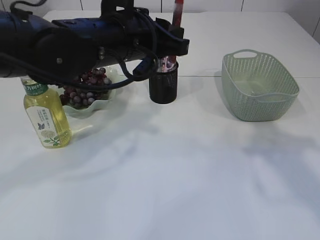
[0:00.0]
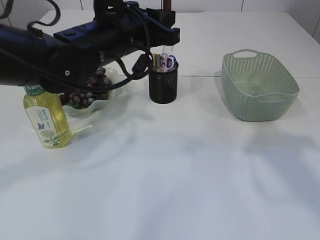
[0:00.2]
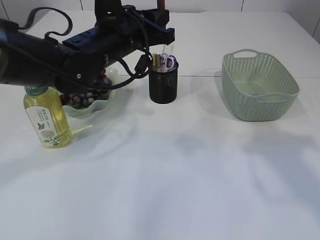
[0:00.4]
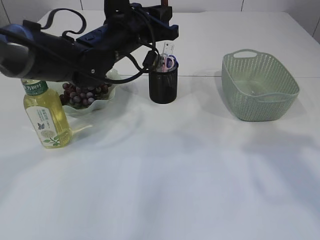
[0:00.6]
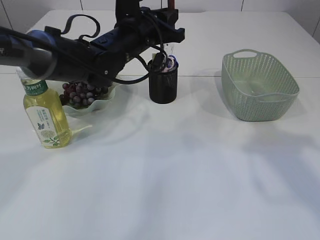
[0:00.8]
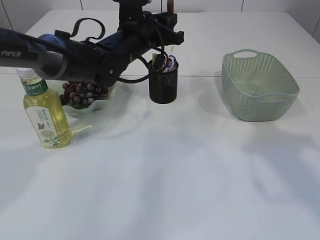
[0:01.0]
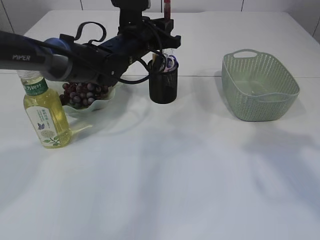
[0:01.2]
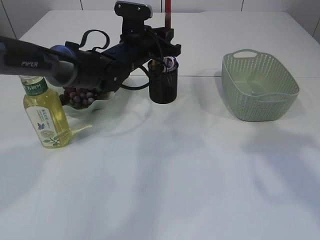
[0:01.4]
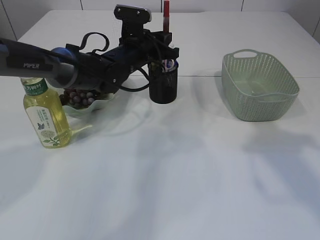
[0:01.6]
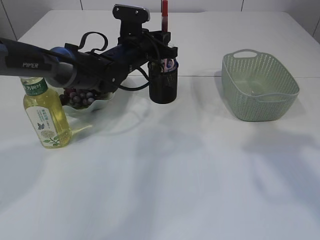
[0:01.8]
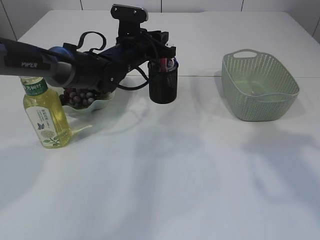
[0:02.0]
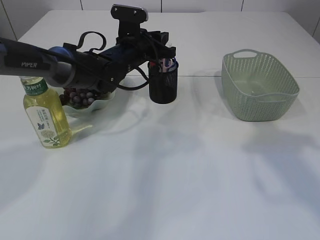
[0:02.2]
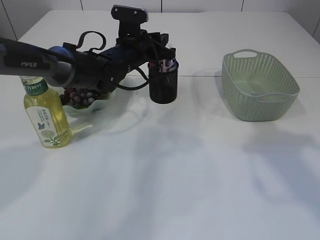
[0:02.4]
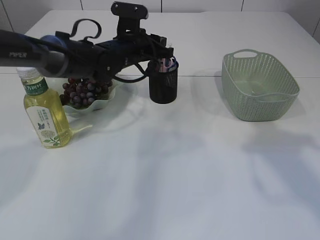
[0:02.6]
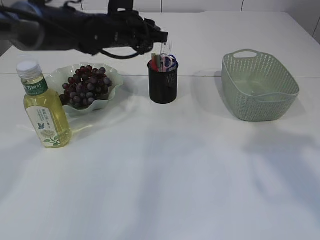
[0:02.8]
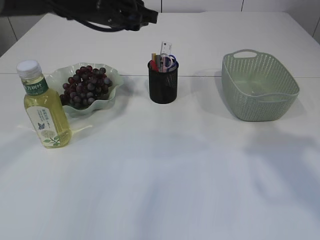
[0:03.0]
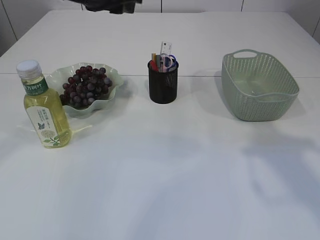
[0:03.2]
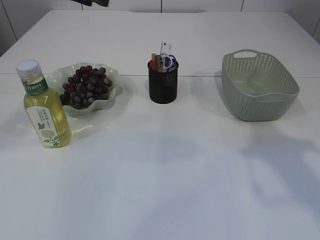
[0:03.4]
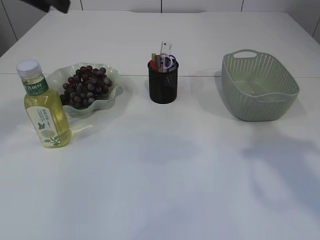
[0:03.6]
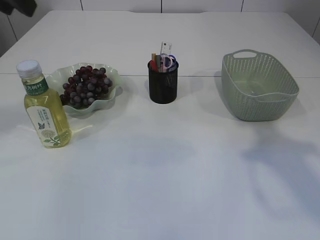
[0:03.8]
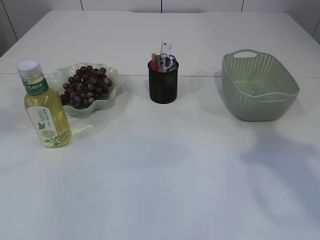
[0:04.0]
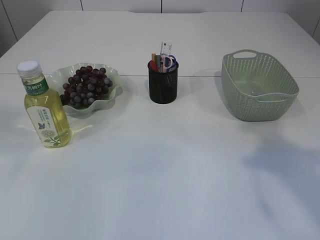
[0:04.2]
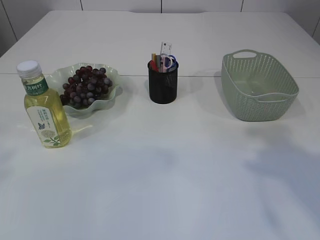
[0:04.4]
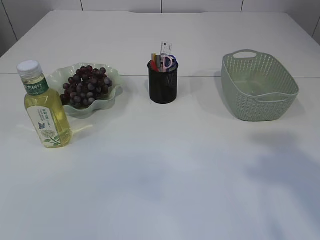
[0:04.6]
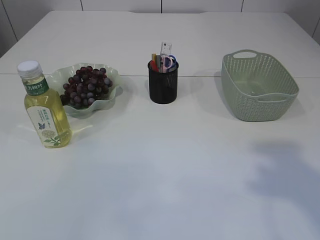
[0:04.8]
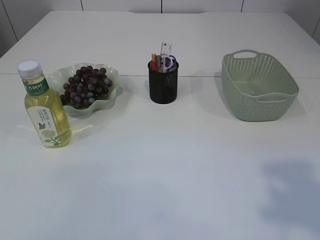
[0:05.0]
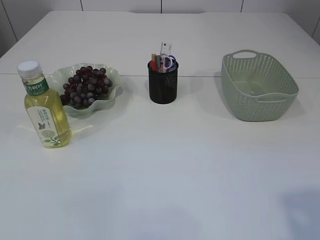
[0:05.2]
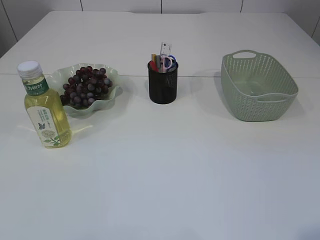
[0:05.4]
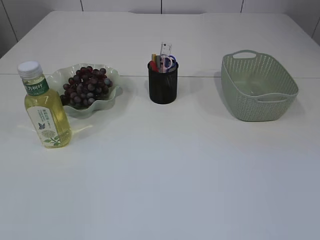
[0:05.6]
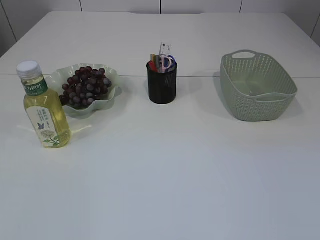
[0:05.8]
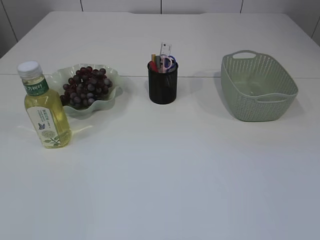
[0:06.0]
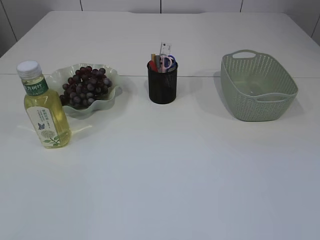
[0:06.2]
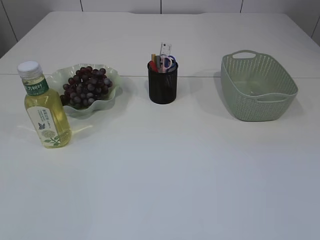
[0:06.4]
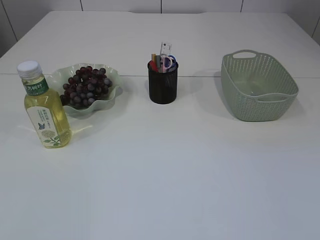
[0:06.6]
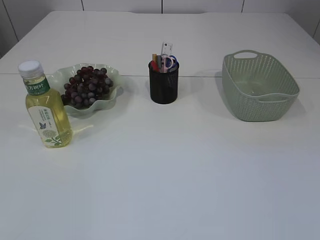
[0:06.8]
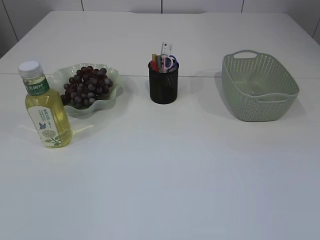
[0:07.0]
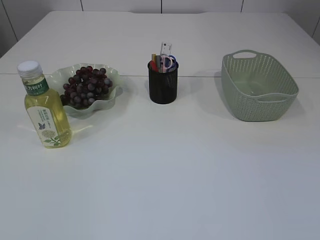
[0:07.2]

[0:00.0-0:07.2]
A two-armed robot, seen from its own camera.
Step, 0:00.0 to 0:02.6: place the red glue into the pen holder.
0:00.0 to 0:01.4: The left gripper heads forward and downward, covering roughly 20 cm.
0:01.4 to 0:02.8: The grippers make only small movements.
0:02.8 to 0:04.4: The right gripper heads backward and upward, covering about 10 cm, while the left gripper goes about 40 cm backward, upward and to the left.
0:04.4 to 0:05.8: The right gripper heads backward and downward, covering about 25 cm.

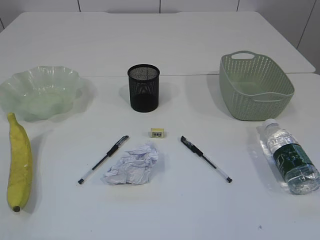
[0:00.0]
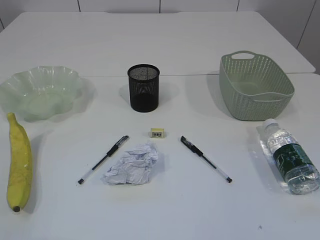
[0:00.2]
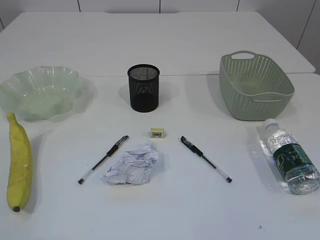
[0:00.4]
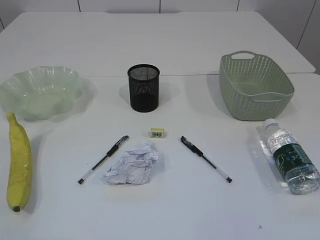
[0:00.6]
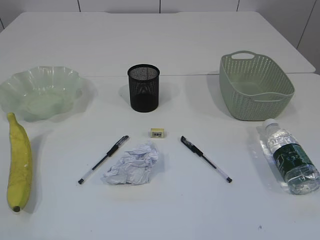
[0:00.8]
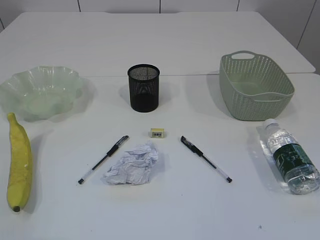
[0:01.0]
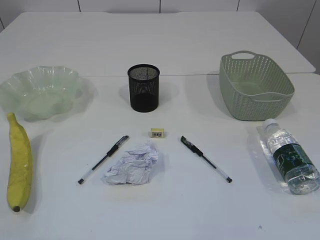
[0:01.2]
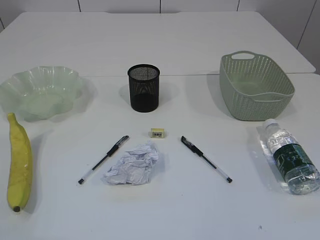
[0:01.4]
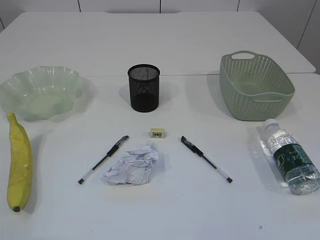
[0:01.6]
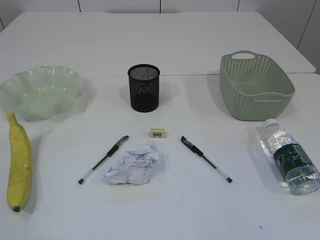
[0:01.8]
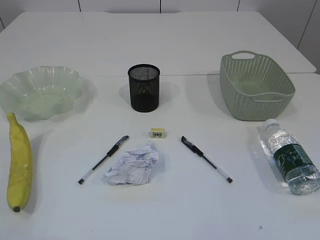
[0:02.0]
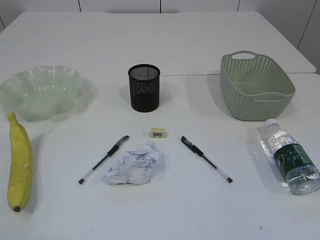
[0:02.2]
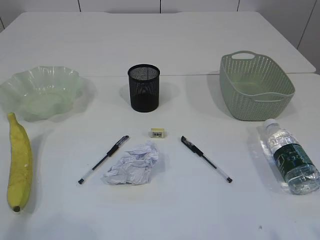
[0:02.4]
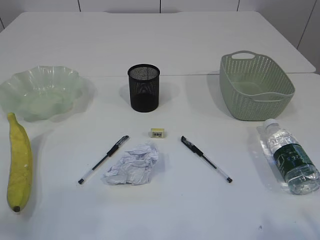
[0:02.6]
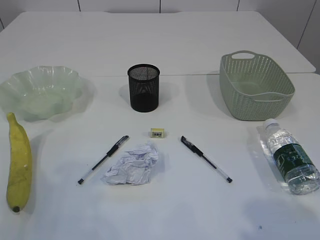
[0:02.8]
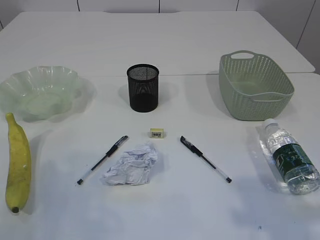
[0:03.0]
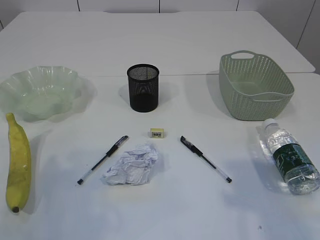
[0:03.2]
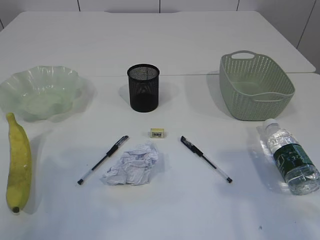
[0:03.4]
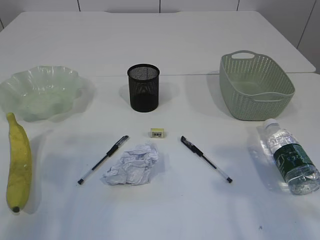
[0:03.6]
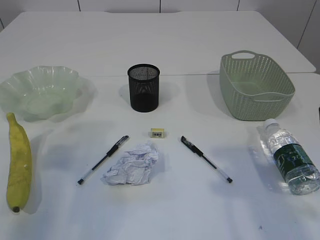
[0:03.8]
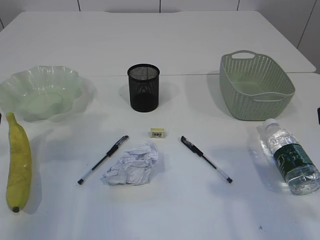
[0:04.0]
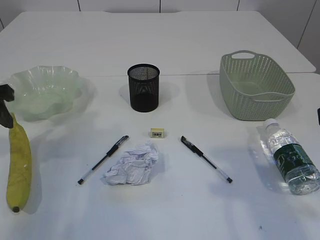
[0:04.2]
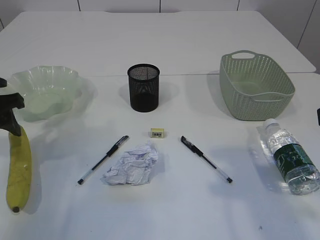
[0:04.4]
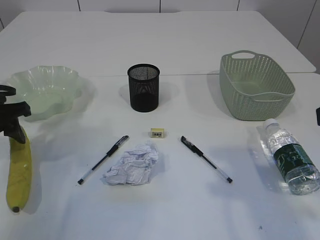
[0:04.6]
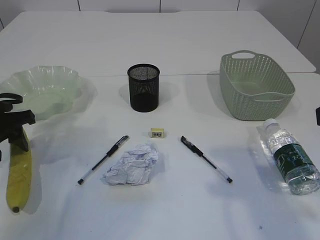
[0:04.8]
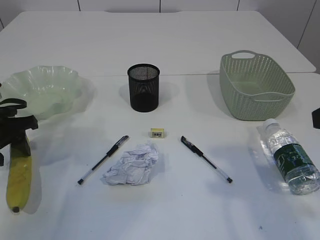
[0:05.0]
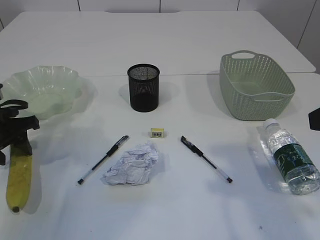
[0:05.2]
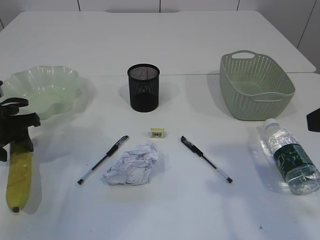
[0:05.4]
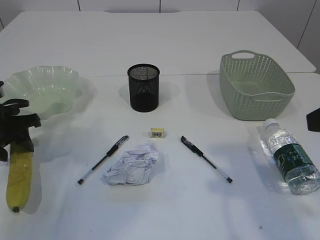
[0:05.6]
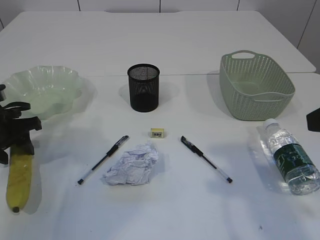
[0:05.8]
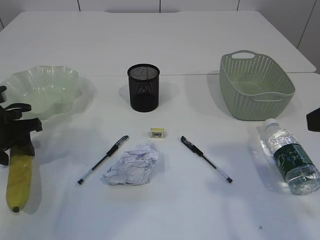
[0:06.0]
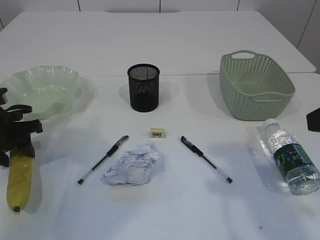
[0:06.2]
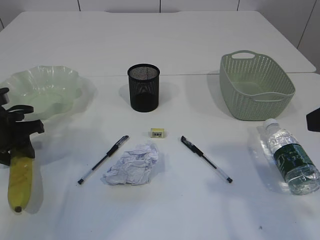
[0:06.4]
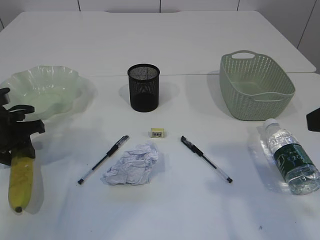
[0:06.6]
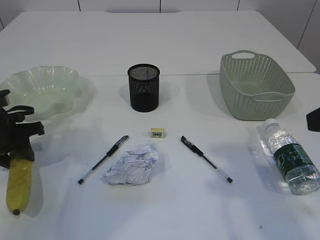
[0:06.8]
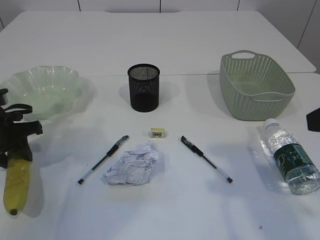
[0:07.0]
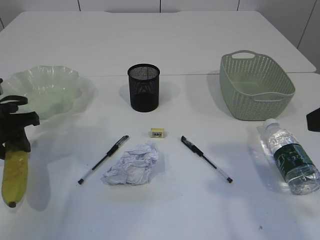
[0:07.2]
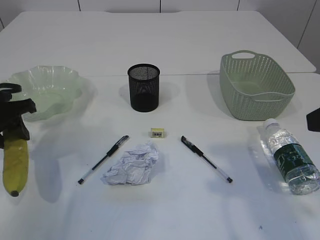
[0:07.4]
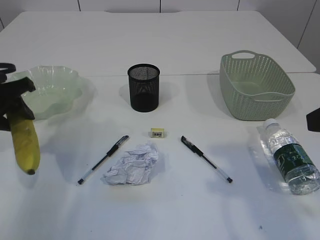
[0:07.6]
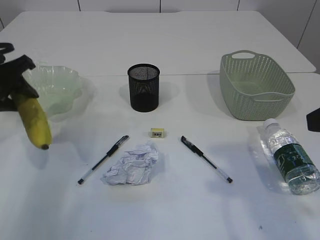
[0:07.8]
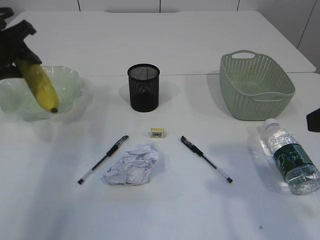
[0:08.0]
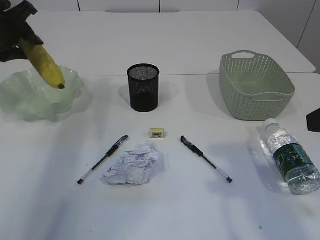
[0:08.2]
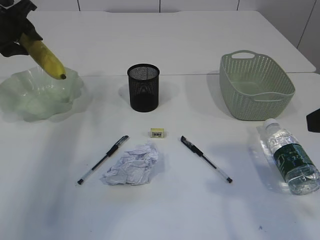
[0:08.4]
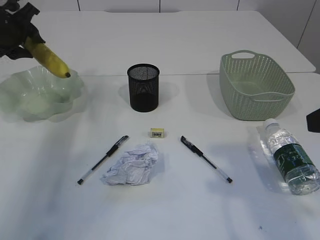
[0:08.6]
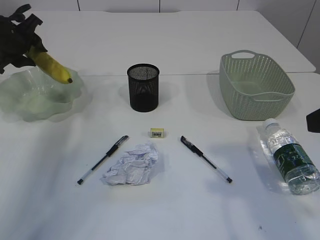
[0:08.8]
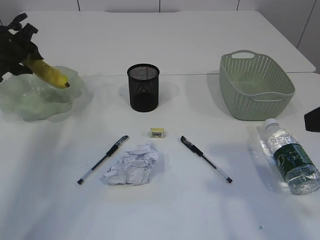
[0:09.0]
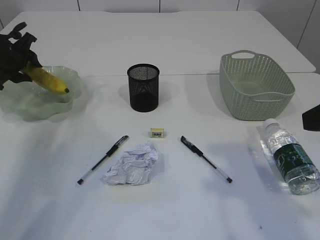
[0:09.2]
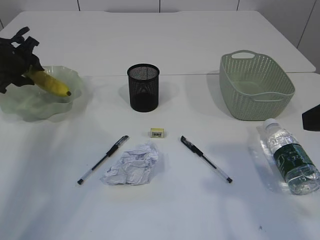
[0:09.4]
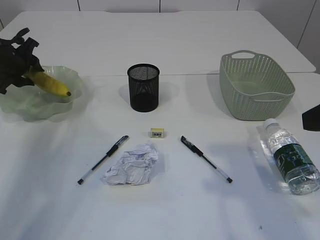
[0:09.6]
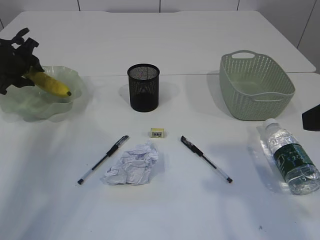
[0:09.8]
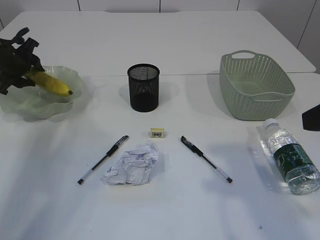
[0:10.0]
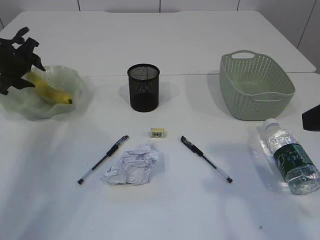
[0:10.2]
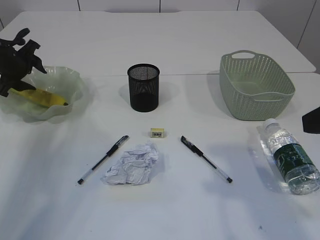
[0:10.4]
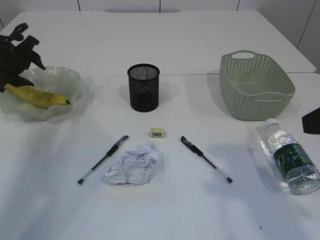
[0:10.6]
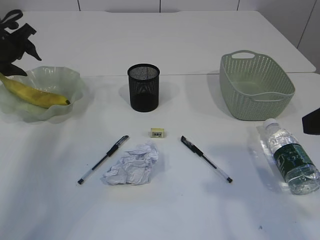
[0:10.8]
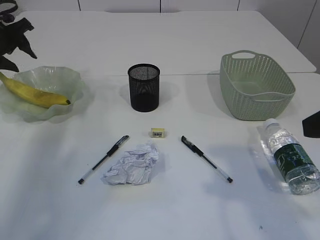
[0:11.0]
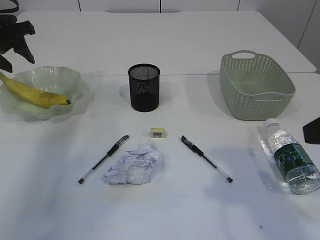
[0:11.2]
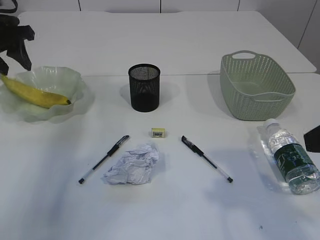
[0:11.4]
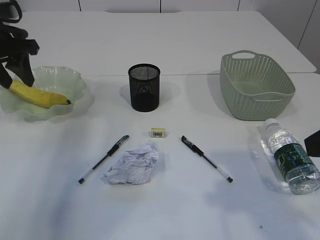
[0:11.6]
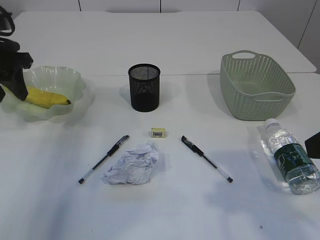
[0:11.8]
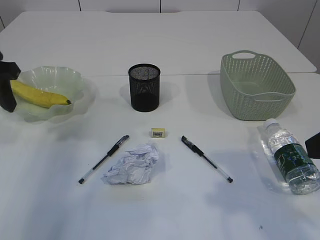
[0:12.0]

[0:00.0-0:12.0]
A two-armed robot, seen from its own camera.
Step, 0:07.6 to 0:11.0: Place the banana in the plate.
0:01.6 to 0:03.0: Both grippers travel together forward, some 15 cm.
0:03.0 to 0:04.4: The left gripper is displaced forward and downward by approximately 20 cm. Meanwhile the right gripper is displaced forward by roughly 5 cm.
0:04.4 to 0:06.0: The left gripper goes about 5 cm downward.
0:06.0 to 0:07.6: The left gripper travels upward by about 5 cm.
0:07.6 to 0:09.0: The left gripper is displaced forward by about 15 cm.
0:09.0 to 0:10.4: There are only small adjustments of the grippers.
0:10.4 to 0:12.0: The left gripper shifts approximately 20 cm backward and upward.

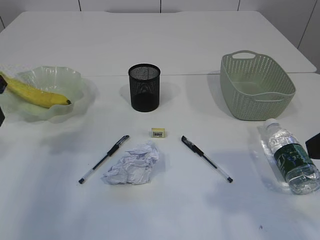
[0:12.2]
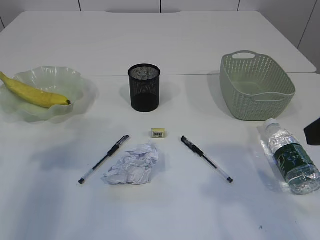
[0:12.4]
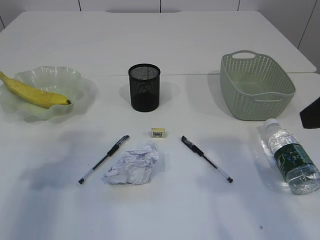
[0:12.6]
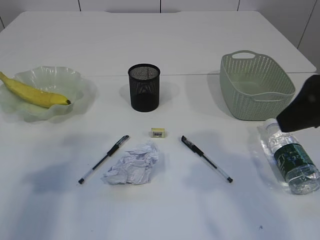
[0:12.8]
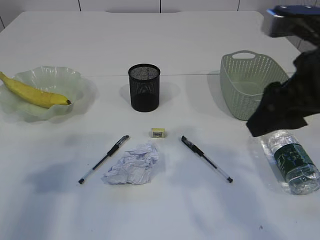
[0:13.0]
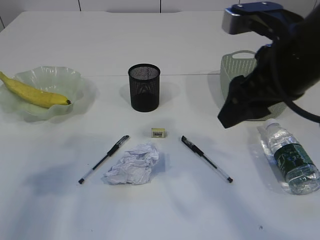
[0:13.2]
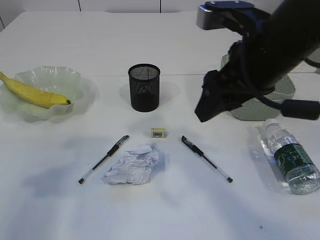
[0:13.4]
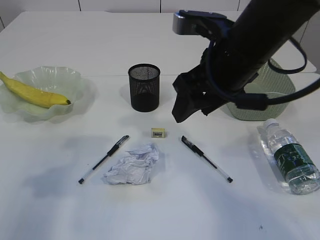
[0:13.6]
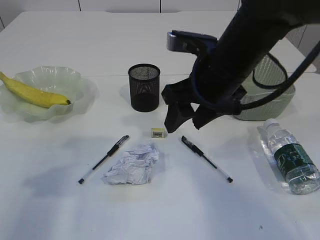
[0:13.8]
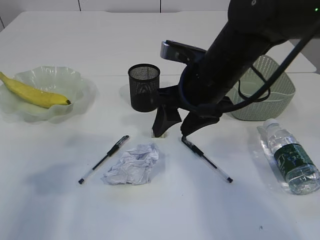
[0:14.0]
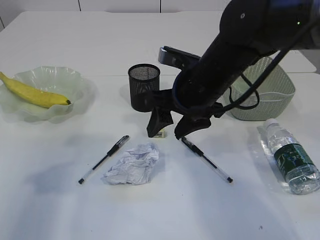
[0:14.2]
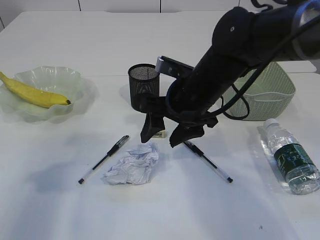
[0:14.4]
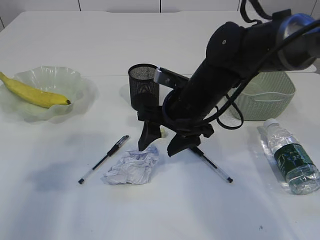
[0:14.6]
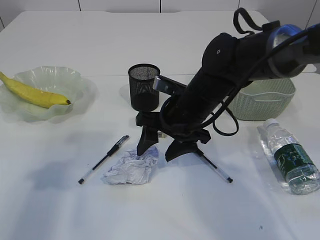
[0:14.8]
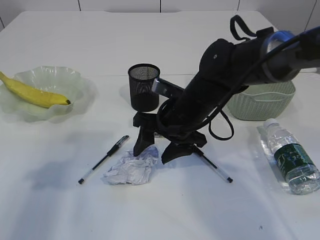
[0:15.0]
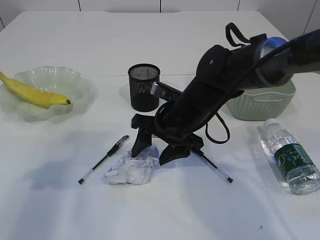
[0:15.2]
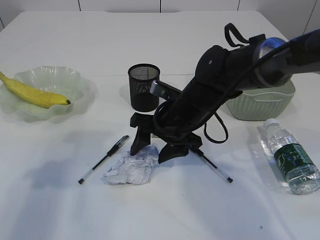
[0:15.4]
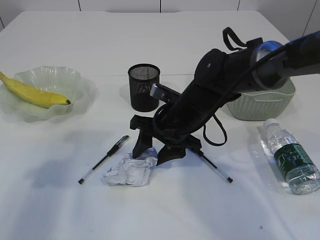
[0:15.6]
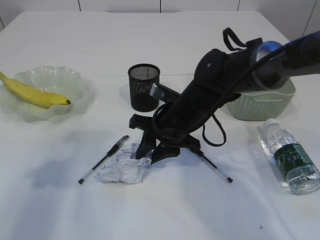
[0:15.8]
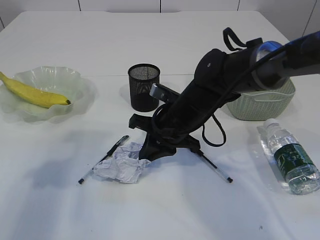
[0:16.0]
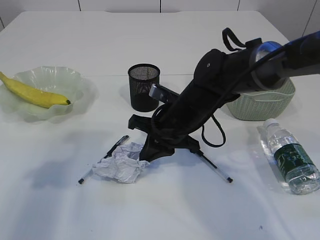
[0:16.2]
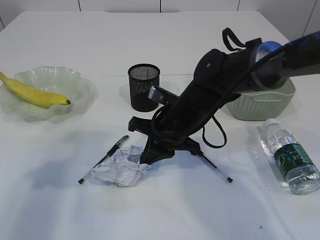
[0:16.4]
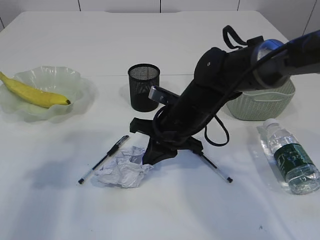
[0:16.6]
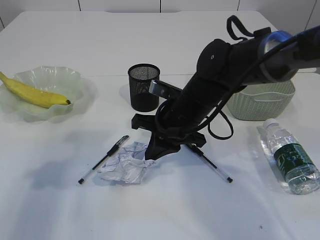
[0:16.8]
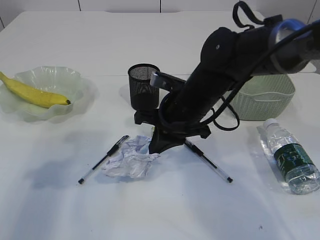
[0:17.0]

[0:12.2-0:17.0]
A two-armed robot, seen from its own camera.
0:12.2 to 0:13.8: The right gripper is displaced forward and to the left by approximately 20 cm; the left gripper shifts about 10 cm backward.
0:13.8 to 0:15.4: The right gripper moves downward, approximately 10 cm.
0:15.4 to 0:17.0: The right gripper closes up.
